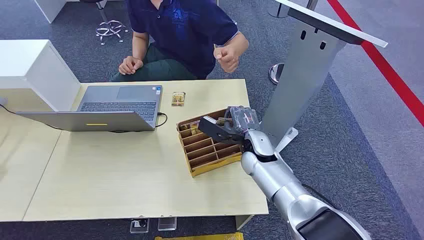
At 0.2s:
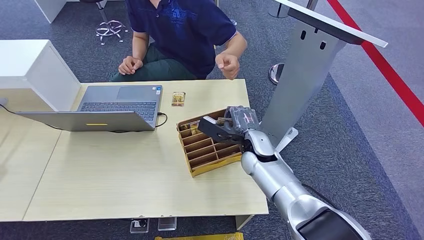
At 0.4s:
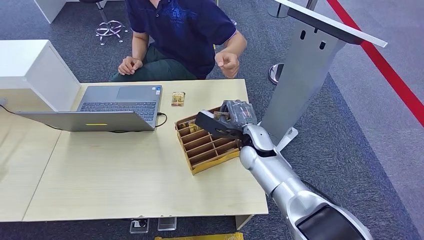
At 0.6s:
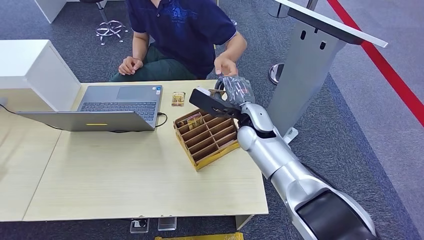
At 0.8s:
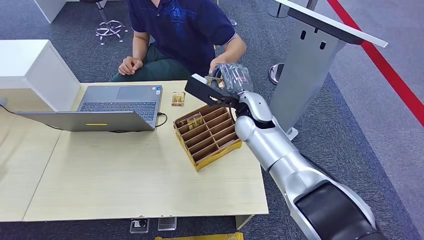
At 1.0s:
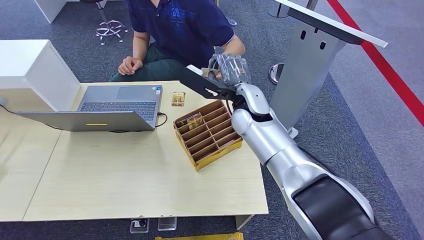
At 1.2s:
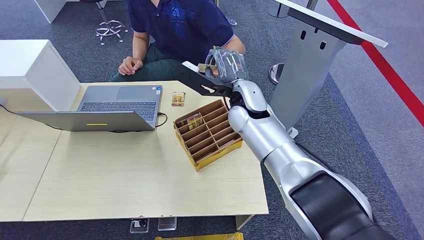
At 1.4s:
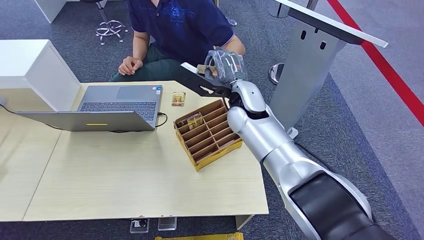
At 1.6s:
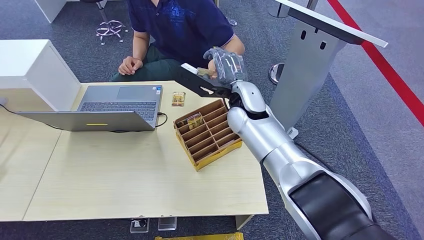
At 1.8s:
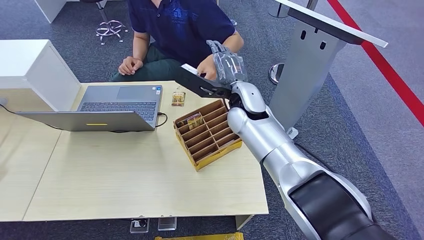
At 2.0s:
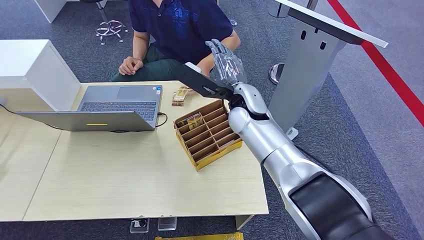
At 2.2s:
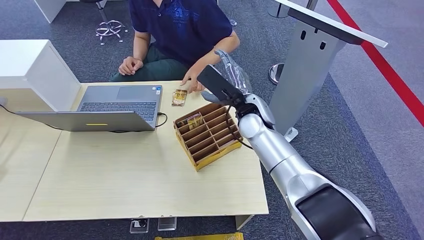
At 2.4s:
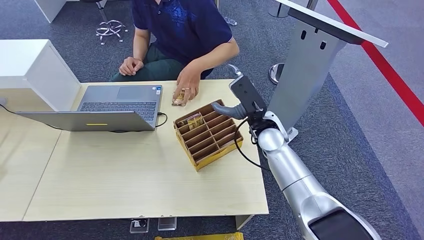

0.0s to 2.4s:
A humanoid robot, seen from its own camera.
Step, 0.0s to 0.6s: Pick up the key card from the card box.
Step, 0.8s to 2.4s: Hand the key card to the target.
1.2s to 2.4s: The right hand travels downward and to the right by approximately 10 cm.
